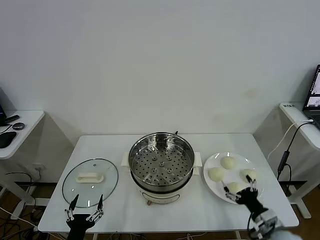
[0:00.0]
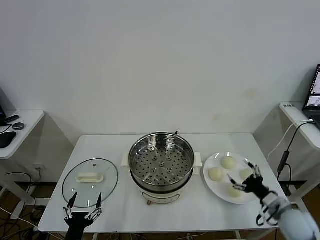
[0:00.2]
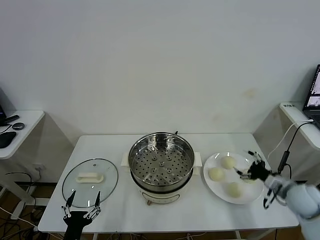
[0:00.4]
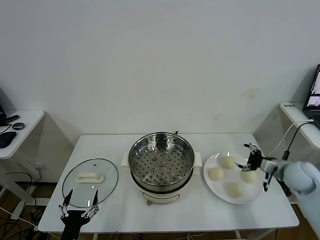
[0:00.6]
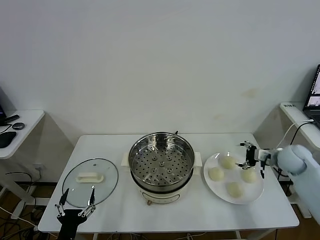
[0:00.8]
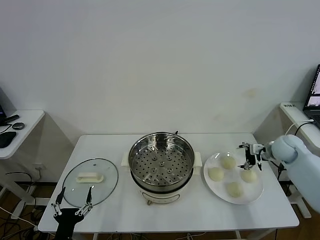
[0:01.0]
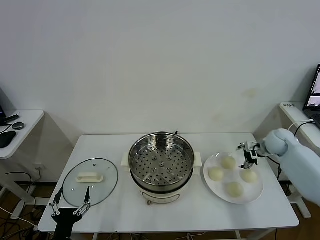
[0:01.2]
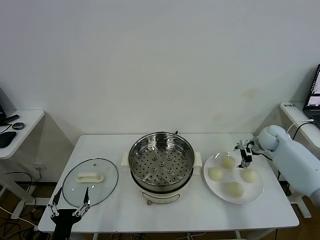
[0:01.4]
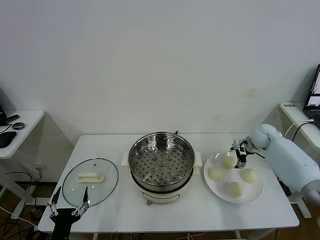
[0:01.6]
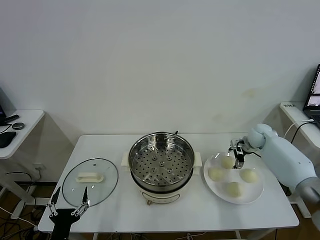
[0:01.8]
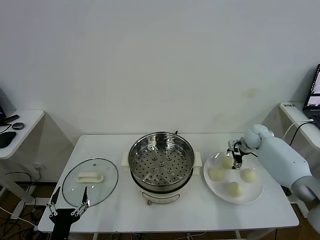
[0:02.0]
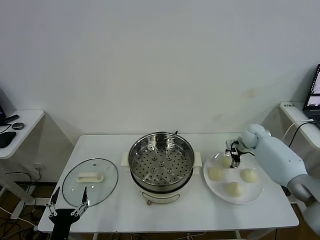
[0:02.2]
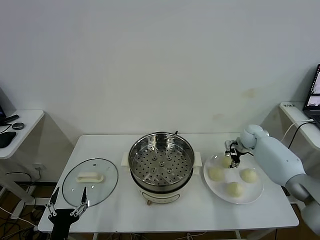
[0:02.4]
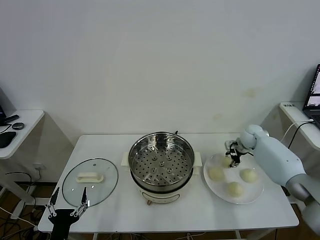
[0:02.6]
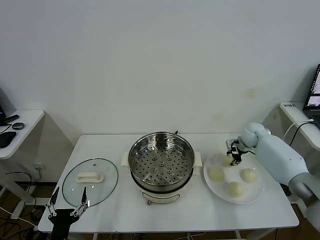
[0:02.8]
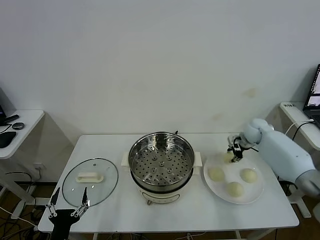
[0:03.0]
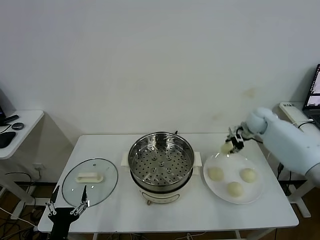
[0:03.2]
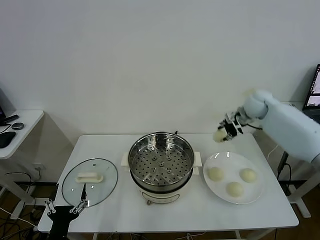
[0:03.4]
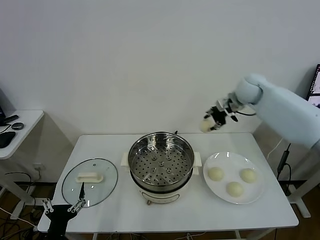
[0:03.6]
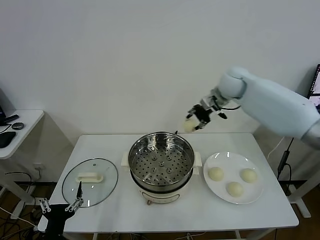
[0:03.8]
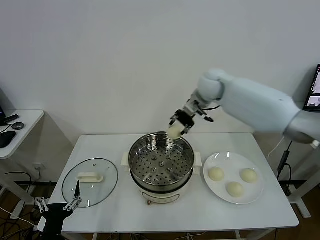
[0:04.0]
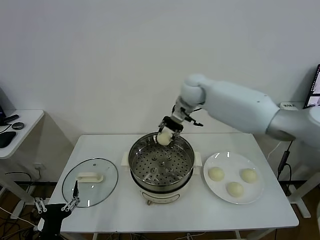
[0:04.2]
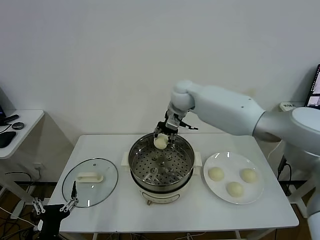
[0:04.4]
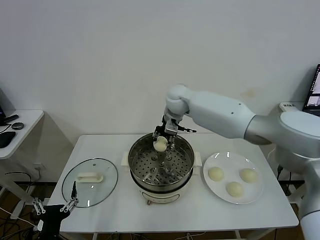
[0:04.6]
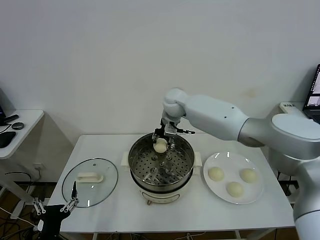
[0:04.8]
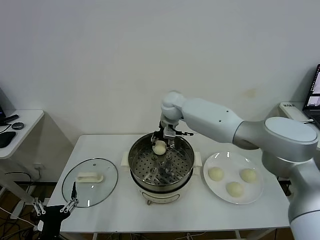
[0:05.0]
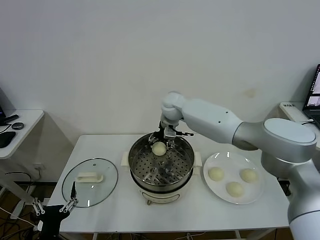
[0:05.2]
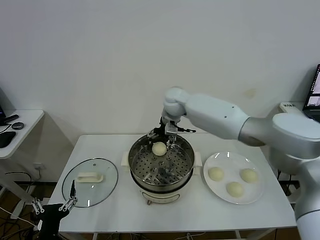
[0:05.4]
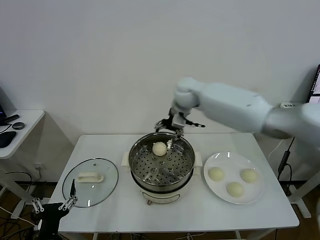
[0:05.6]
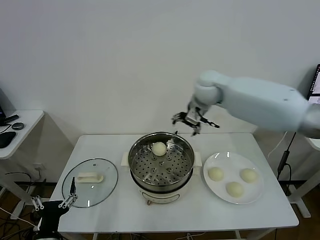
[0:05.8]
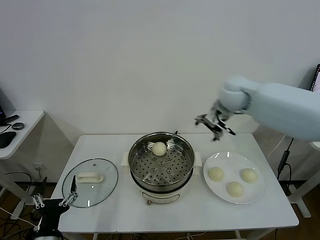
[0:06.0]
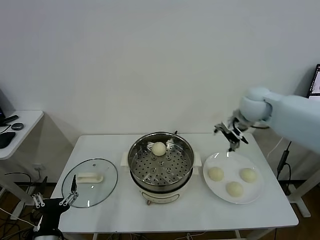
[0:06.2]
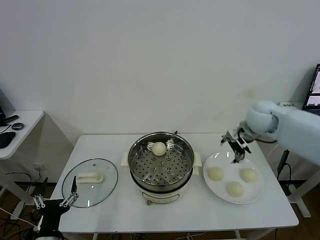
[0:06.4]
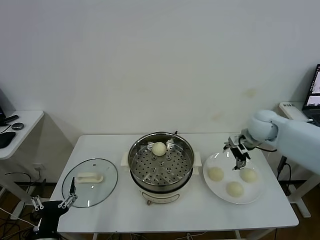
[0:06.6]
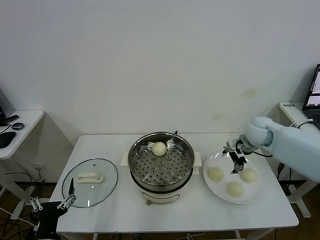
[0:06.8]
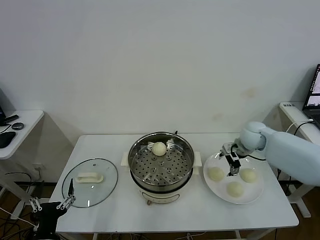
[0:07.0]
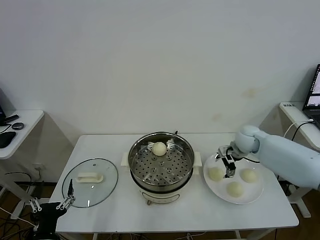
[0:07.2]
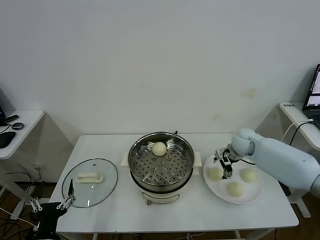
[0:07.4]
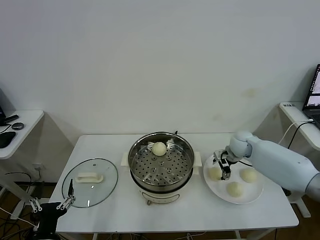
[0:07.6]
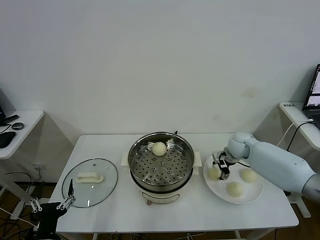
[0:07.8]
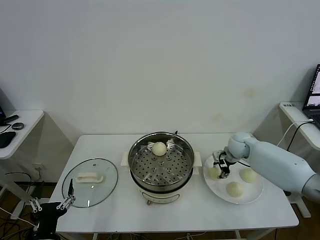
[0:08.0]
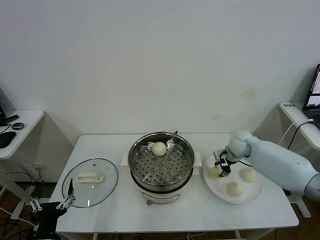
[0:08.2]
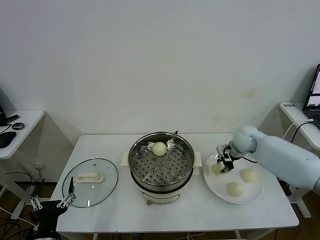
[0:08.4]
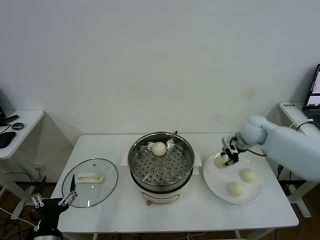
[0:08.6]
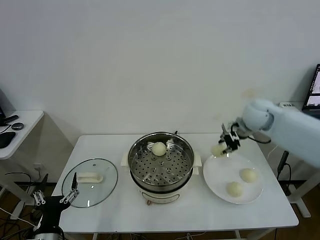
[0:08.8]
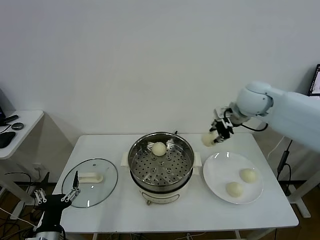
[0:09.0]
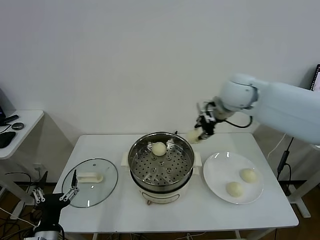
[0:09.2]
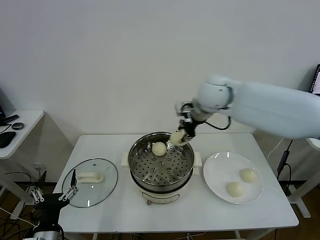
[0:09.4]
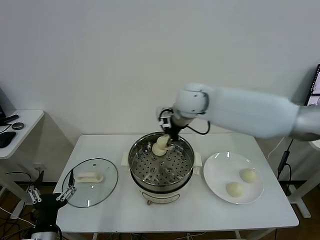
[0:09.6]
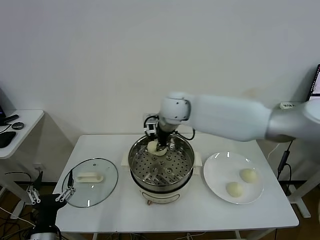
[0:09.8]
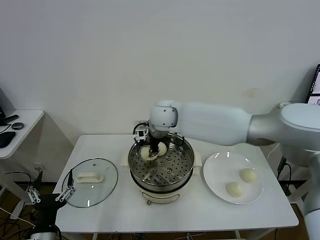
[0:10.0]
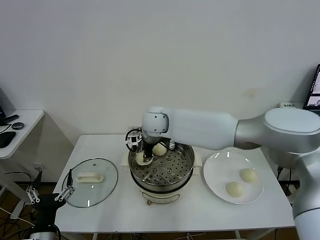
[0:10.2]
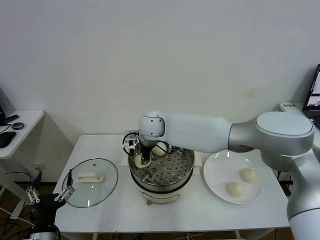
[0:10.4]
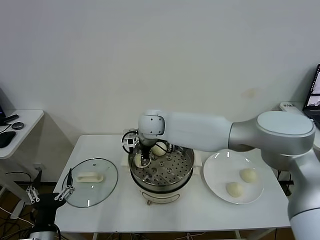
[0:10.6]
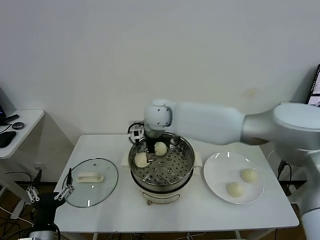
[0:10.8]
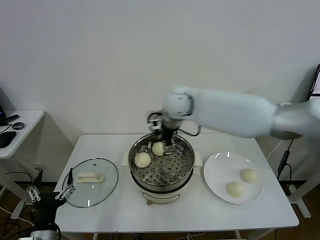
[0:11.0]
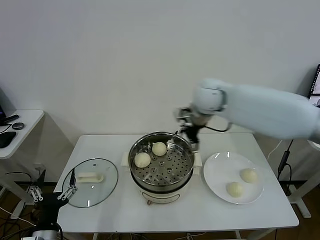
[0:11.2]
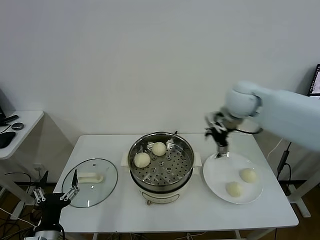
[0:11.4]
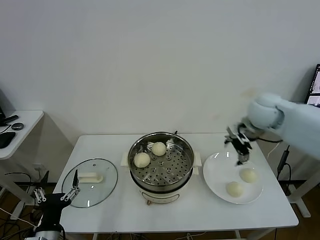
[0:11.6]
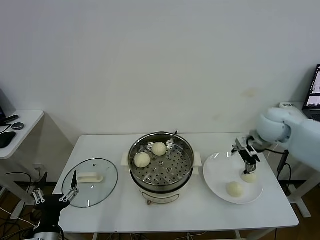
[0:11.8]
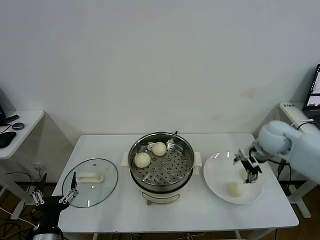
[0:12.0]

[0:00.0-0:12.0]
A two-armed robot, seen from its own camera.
Task of the whole recording: take steamed baozi put them in steamer.
Step, 0.0 to 2.6 s: Grasp the baozi in the plate with right gripper.
Step, 2.8 to 5.4 s: Place the baozi on the steamer with right gripper.
Step, 5.6 to 8.2 s: Grasp the baozi in the plate with right gripper.
Step, 8.4 to 10.8 s: Place the baozi on the steamer with right gripper.
1.6 to 3.0 s: The right gripper heads upward, covering about 5 cm, and closes up.
3.0 to 4.4 s: The right gripper goes about 30 cm to the left.
4.4 to 6.0 s: The right gripper is displaced to the right by roughly 20 cm, and opens its fingers.
6.0 to 7.6 s: The right gripper travels downward by approximately 20 cm.
7.6 to 9.0 s: The right gripper moves upward, roughly 25 cm, and closes its fingers.
9.0 to 10.4 s: The right gripper heads to the left and downward, covering some 30 cm.
10.4 to 12.0 s: The right gripper goes approximately 40 cm to the right, and opens.

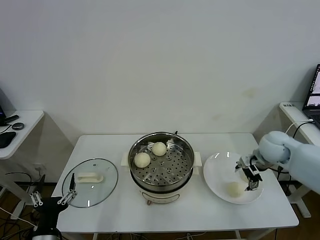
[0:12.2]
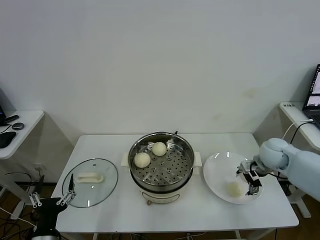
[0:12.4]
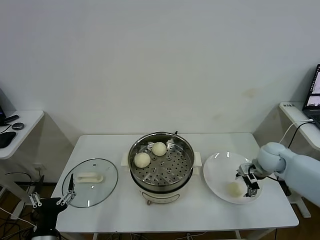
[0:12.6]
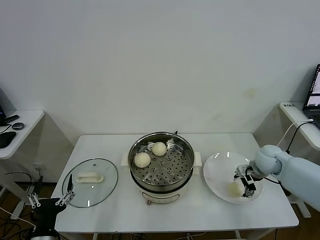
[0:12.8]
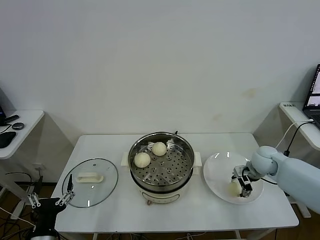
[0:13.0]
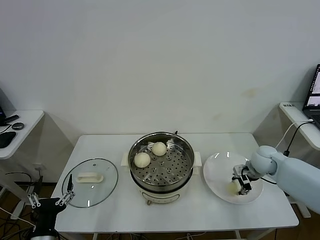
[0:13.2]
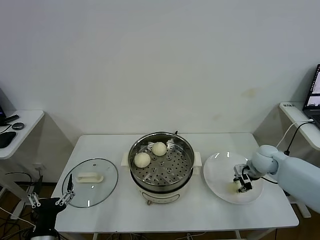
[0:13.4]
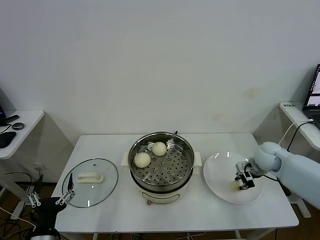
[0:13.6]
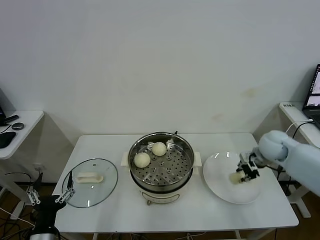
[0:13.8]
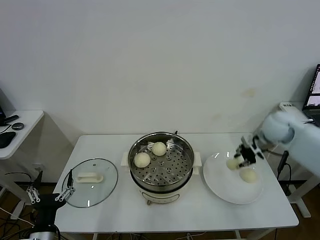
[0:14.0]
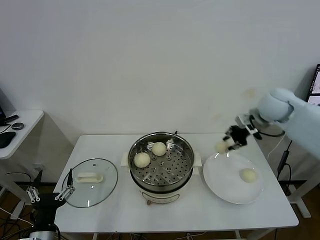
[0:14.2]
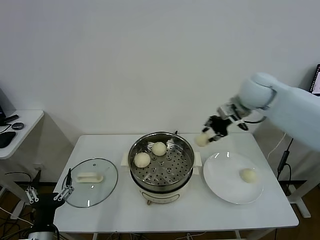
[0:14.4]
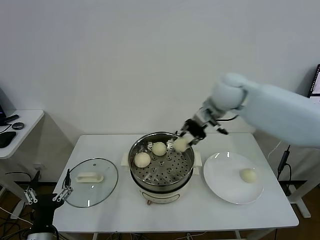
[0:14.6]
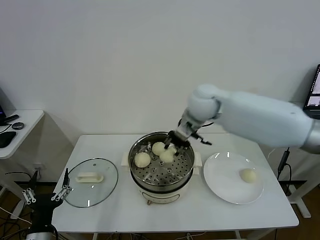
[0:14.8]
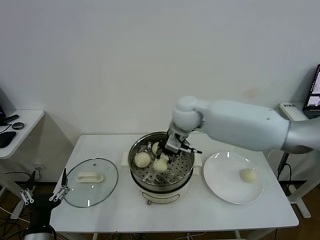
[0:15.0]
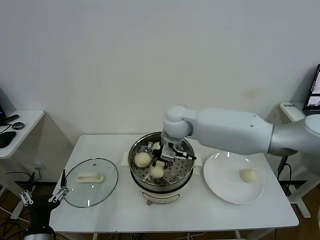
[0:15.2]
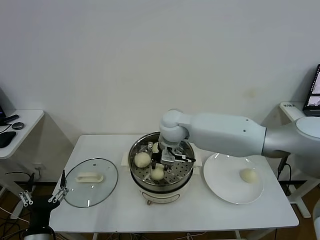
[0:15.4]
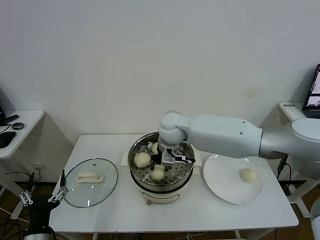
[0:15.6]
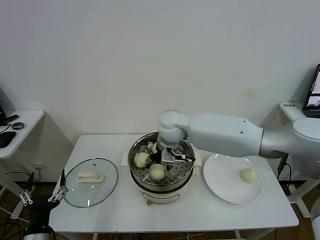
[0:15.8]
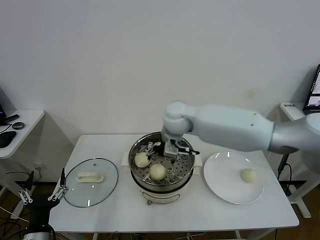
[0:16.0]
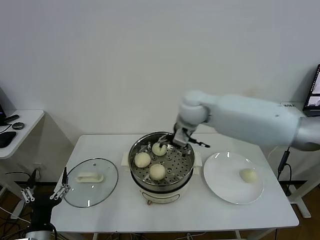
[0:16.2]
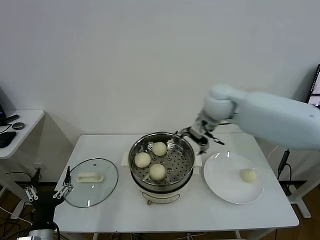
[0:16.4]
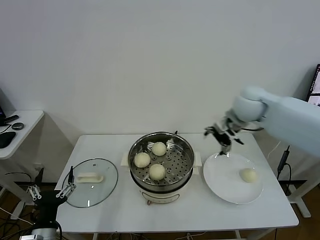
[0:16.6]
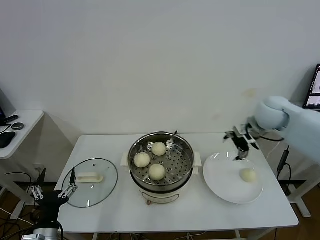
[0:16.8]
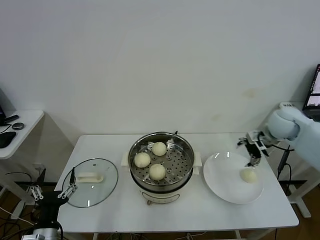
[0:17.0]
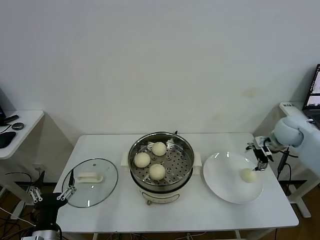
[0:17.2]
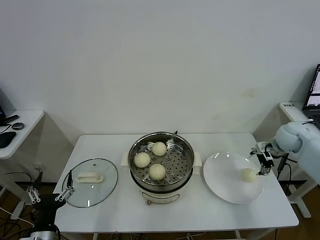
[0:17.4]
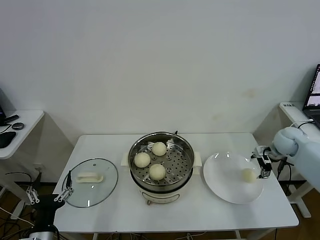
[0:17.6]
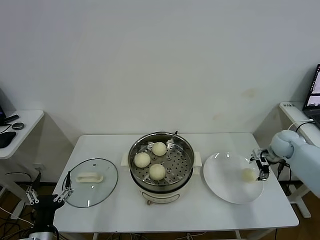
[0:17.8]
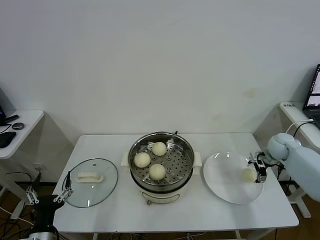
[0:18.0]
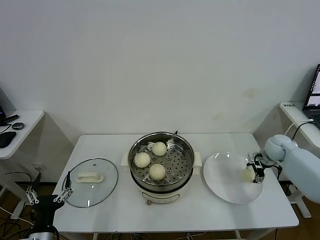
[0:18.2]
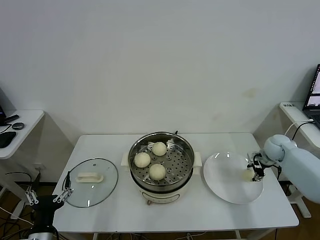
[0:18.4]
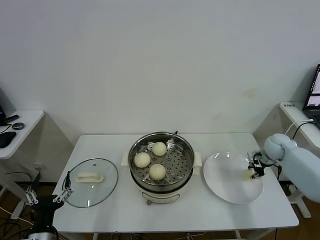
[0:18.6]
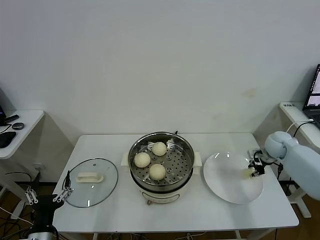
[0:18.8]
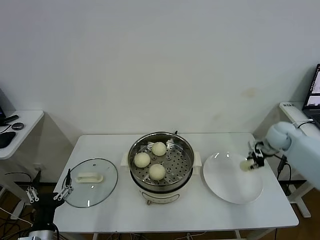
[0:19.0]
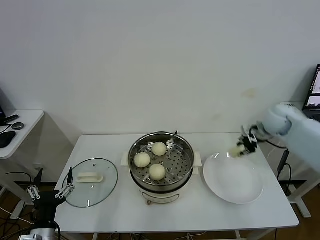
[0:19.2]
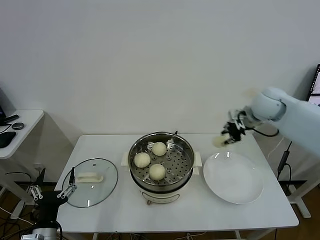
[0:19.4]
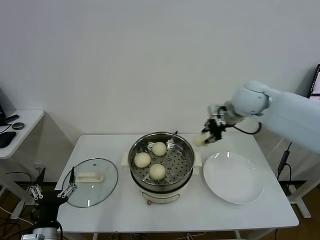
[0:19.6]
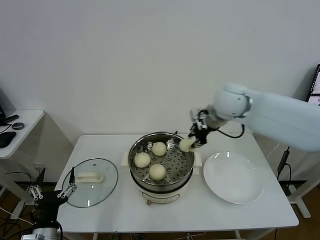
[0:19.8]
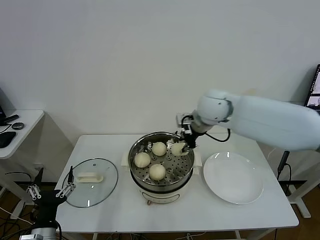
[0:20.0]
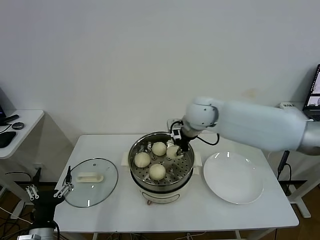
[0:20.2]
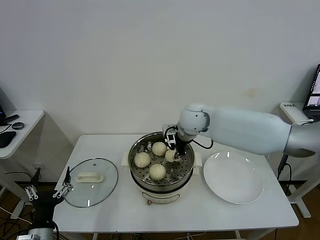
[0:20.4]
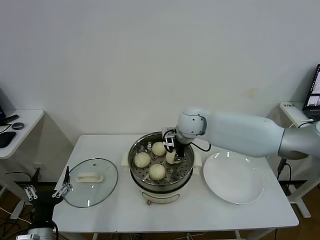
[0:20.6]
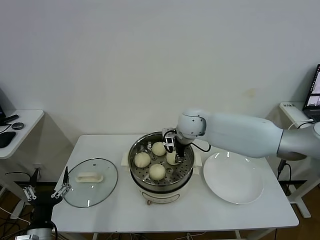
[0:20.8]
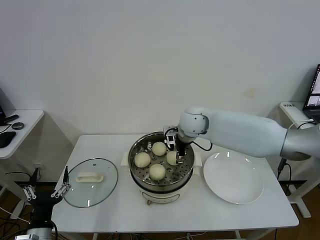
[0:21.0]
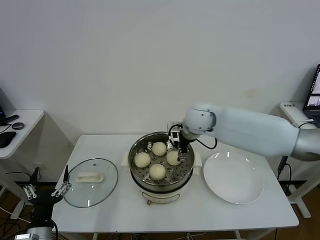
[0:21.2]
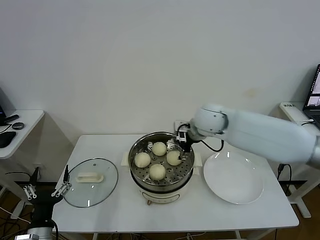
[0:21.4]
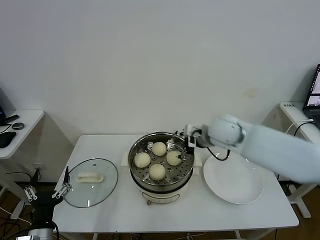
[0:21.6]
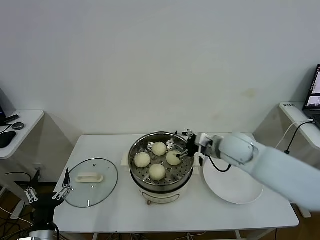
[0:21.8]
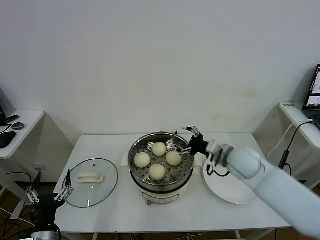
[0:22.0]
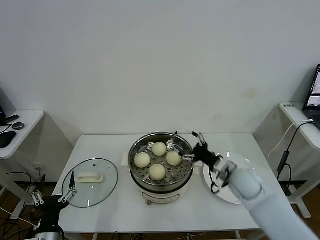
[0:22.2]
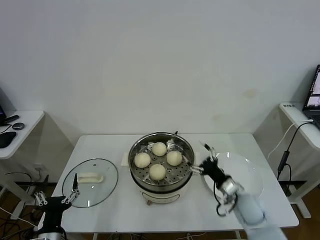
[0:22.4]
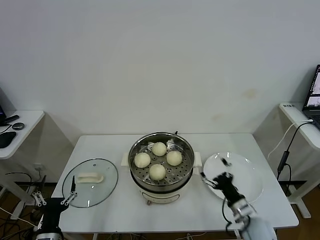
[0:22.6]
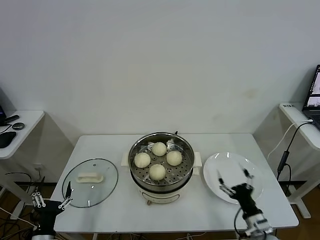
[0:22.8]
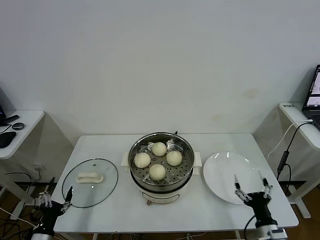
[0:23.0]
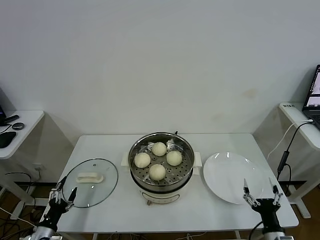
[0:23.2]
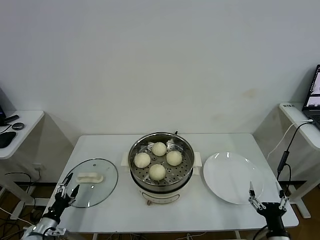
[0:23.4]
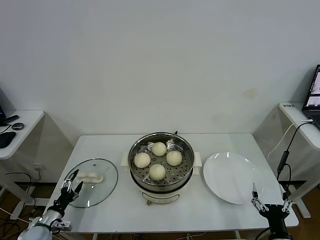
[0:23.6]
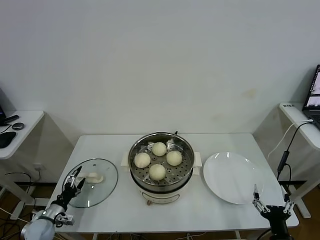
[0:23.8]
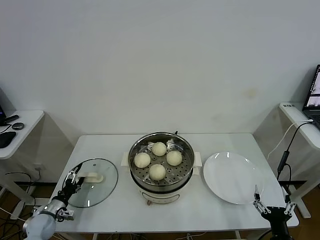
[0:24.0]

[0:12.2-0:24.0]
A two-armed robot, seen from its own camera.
Task of the whole recording: take steamed baozi put them in steamer.
Step, 13.6 to 16.0 s: Place the baozi on the steamer with right gripper.
Step, 16.2 to 18.6 s: Grasp the baozi in the plate with right gripper.
Step, 18.8 to 21.0 s: Place the baozi on the steamer with right gripper.
12.2 to 13.6 s: The right gripper closes its fingers.
13.6 to 15.2 s: The right gripper is displaced to the left by approximately 35 cm.
15.2 to 16.6 s: The right gripper travels to the right by roughly 25 cm, and opens.
16.6 to 18.2 s: The right gripper shifts roughly 25 cm downward and to the right.
18.2 to 19.6 s: The right gripper travels upward and to the left by approximately 30 cm, and closes its fingers.
19.6 to 21.0 s: The right gripper moves to the left and downward, about 15 cm, and opens up.
21.0 to 22.6 s: The right gripper shifts roughly 40 cm backward, downward and to the right.
22.6 to 24.0 s: The right gripper moves backward and to the right, approximately 15 cm, while the left gripper goes roughly 20 cm forward, to the left and downward.
